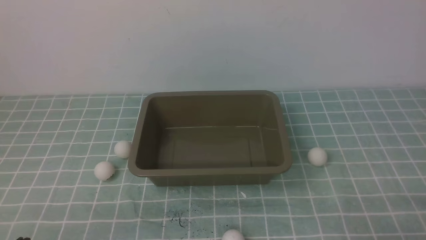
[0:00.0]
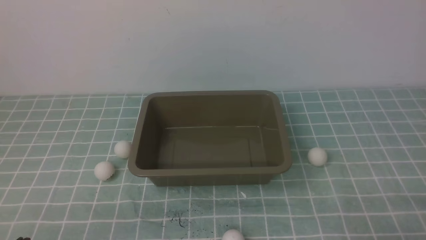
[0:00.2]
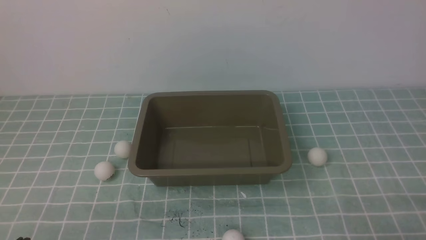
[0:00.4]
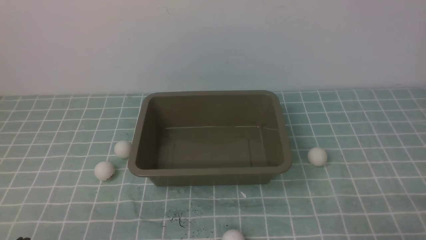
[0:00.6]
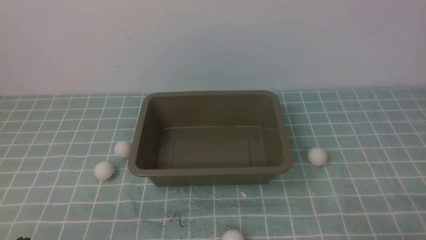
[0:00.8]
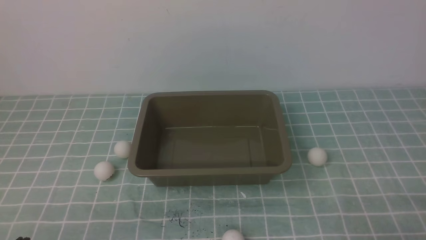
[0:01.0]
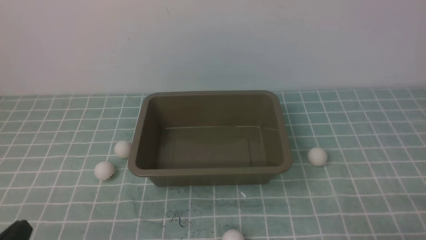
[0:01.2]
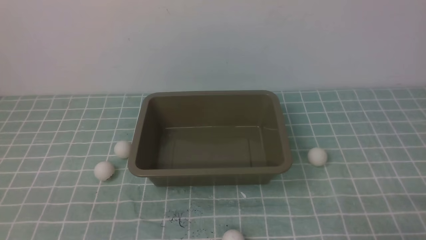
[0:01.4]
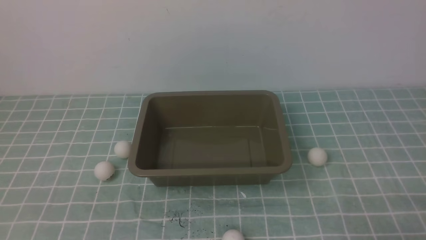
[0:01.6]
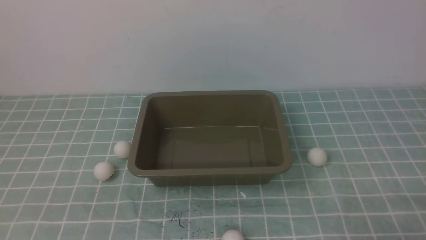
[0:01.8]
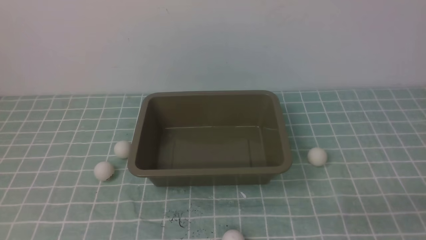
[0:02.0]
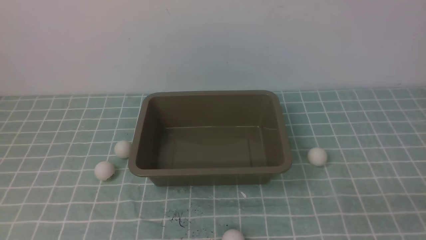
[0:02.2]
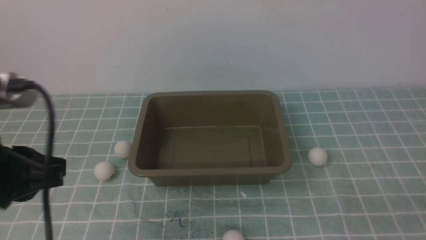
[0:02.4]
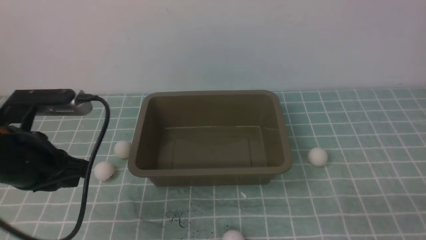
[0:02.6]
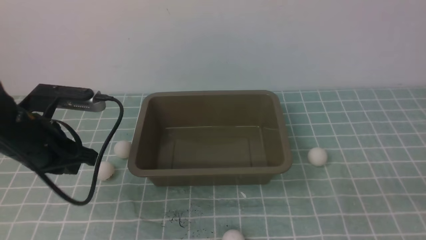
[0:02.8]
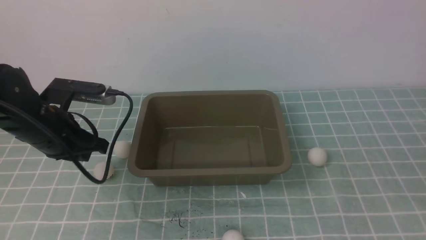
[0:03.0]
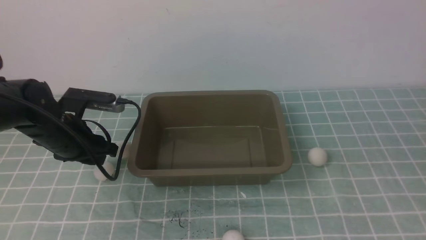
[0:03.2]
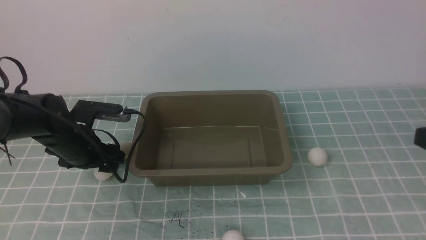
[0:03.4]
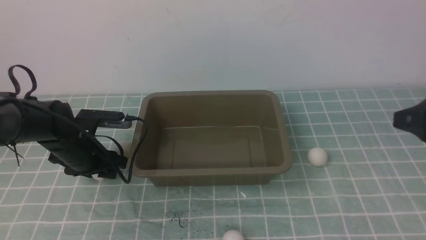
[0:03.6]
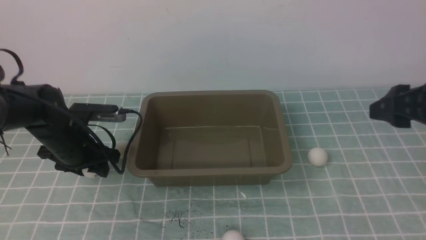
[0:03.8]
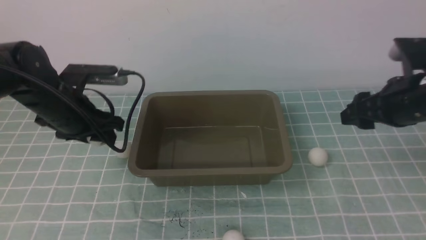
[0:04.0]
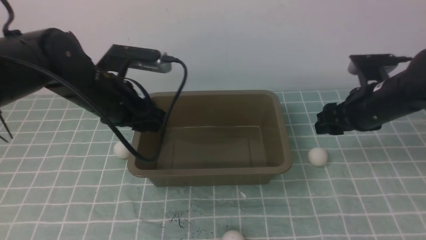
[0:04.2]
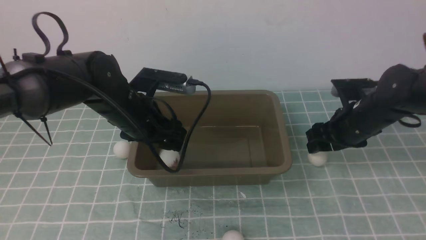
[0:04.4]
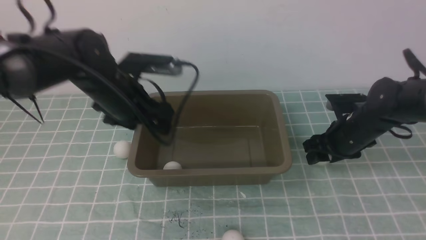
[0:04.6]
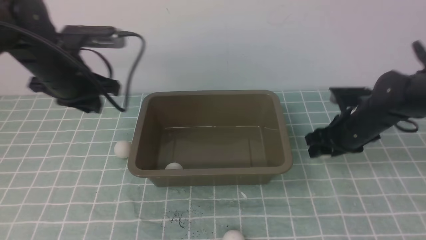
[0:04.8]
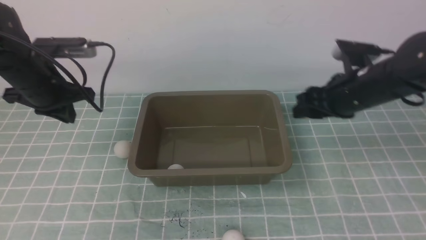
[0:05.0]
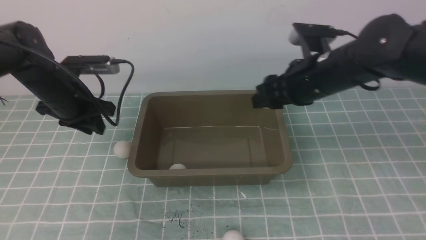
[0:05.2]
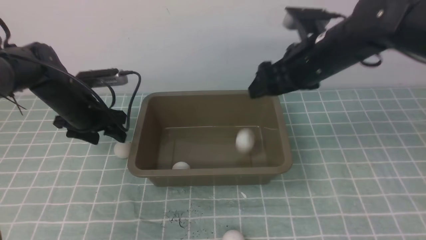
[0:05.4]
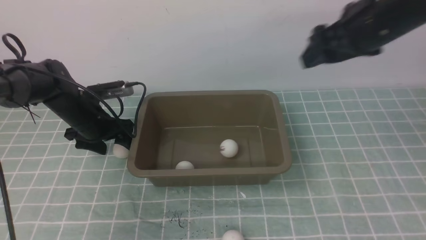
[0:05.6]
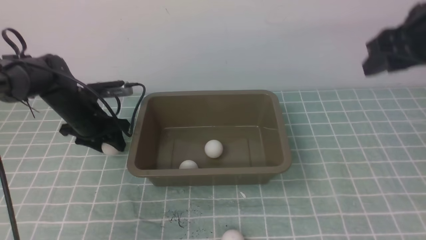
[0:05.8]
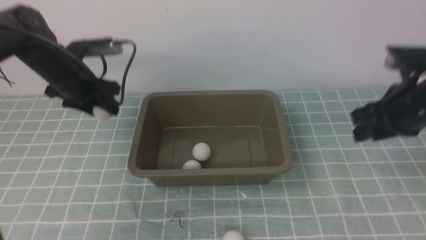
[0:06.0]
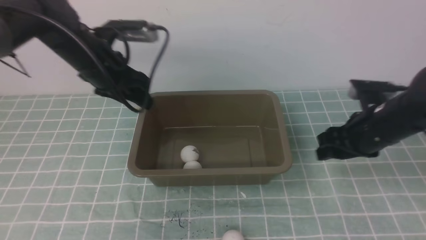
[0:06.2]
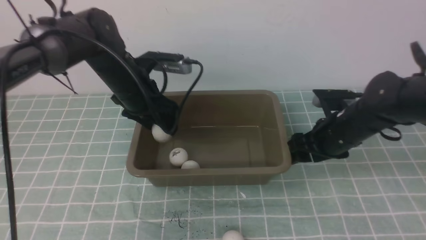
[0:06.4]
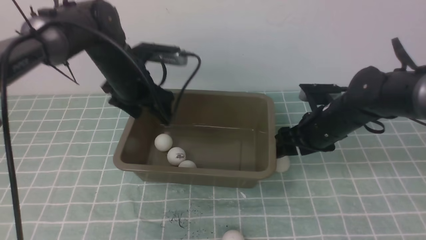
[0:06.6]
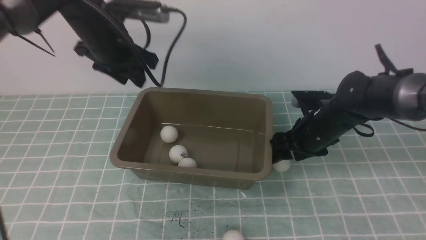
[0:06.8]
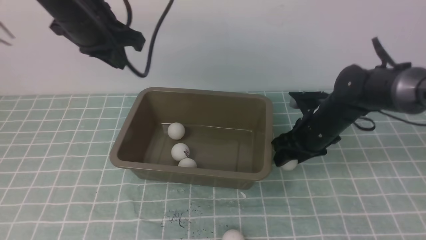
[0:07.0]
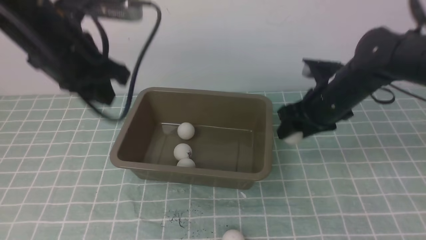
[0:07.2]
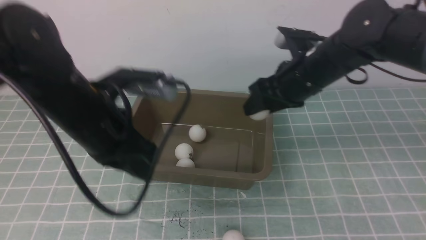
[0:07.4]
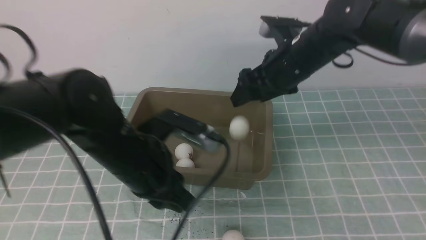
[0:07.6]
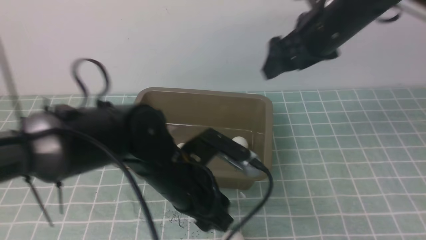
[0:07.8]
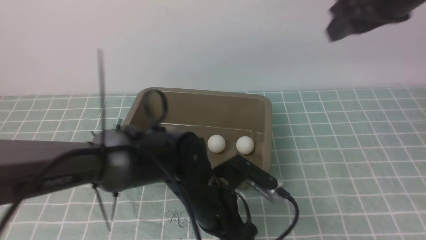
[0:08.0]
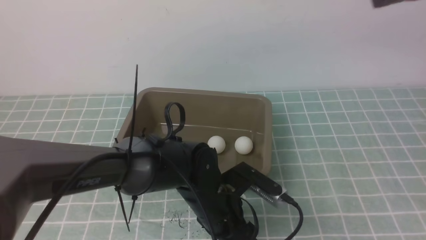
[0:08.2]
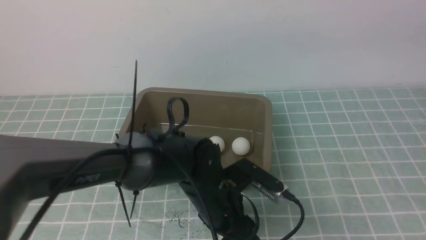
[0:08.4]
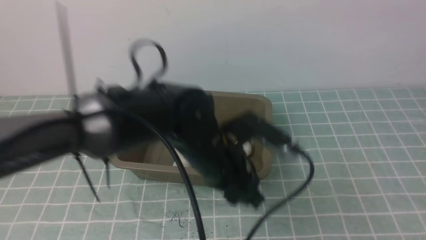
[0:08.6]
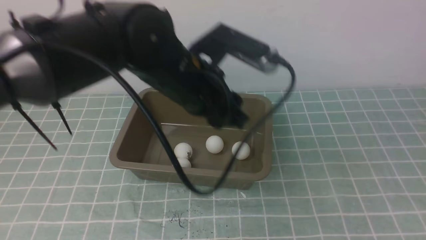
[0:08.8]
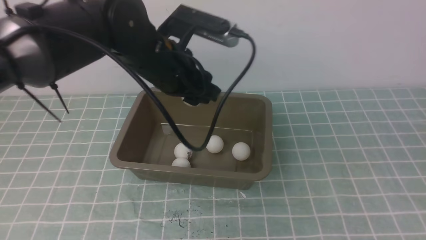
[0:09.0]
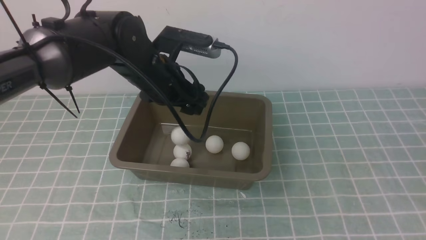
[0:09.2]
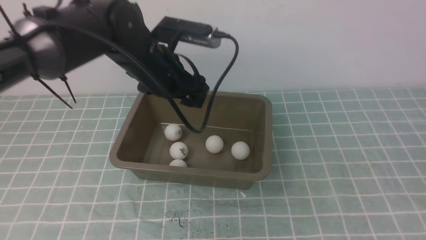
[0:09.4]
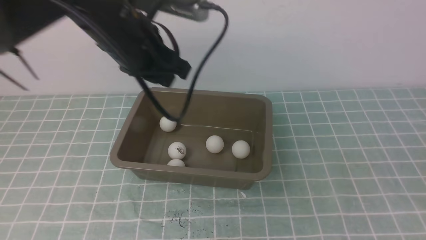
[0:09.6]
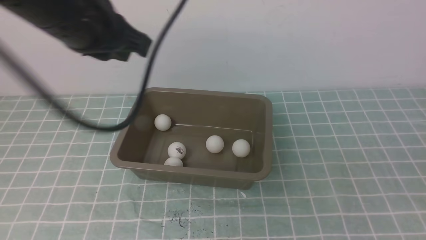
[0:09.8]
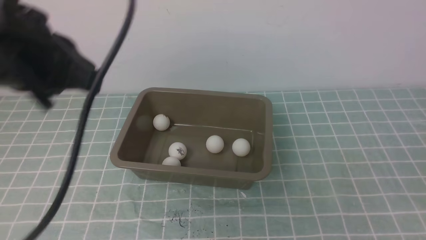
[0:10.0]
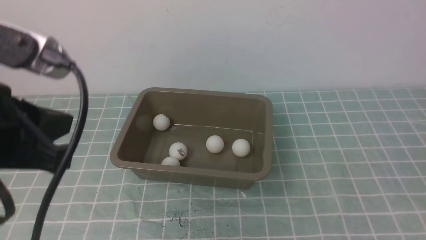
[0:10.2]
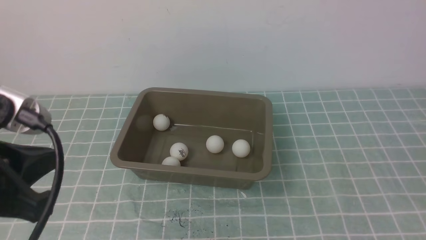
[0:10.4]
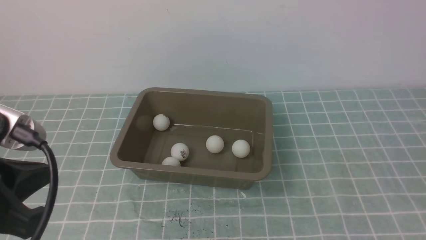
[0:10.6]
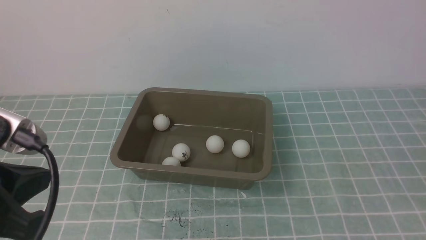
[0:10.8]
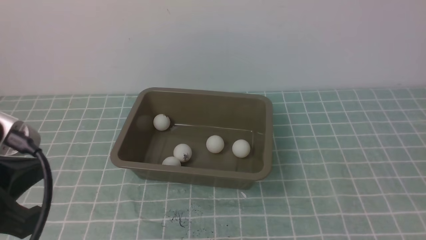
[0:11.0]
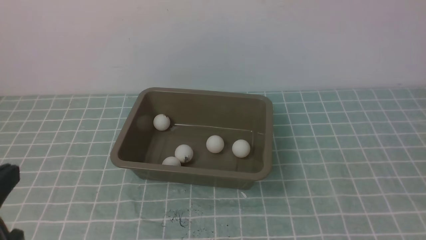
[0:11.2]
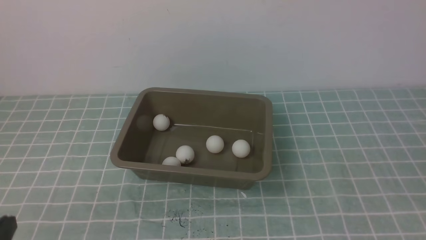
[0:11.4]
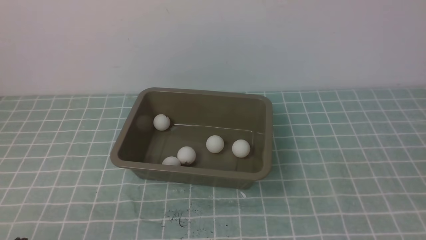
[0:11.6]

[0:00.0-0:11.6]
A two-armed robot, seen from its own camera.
Step, 0.0 to 3.8 s: use the left arm to clamp the table tennis ball closest to it.
Step, 4.0 to 4.4 s: use the left arm to put the table tennis ball into the box.
Step, 4.6 to 4.8 s: use the right arm to clamp the table tennis ball closest to it.
Step, 5.0 to 5.2 s: use the right arm to put the table tennis ball into the box.
Step, 5.4 to 6.0 s: use the left arm to clamp the table tennis ball closest to it.
Step, 6.2 to 6.4 s: use the left arm to put the table tennis ball into the box.
Step, 6.6 to 7.0 s: use the right arm to clamp the table tennis ball closest to it.
Step, 7.2 to 7.6 s: use the right arm to put the table tennis ball into the box.
Step, 7.8 to 8.4 s: use the left arm to clamp the table tennis ball closest to it.
Step, 8.6 to 9.4 s: use the left arm to put the table tennis ball into the box.
1.4 to 2.8 s: The left gripper moves forward, roughly 20 cm.
2.8 to 4.4 s: The right gripper heads forward, covering some 30 cm, and opens up. The left gripper travels forward and to the right by roughly 15 cm, goes downward and returns, some 10 cm each way, and opens.
4.4 to 5.8 s: The right gripper is displaced upward by about 15 cm; the left gripper is displaced to the left, downward and forward by roughly 15 cm, and closes, then reopens.
5.8 to 7.2 s: The left gripper moves upward, backward and to the right, roughly 20 cm, and closes up, while the right gripper goes about 15 cm downward and to the left.
7.2 to 8.8 s: The right gripper goes some 40 cm backward, upward and to the right, and closes its fingers, while the left gripper moves to the right and downward, about 15 cm, and opens up.
8.8 to 10.2 s: The right gripper moves backward and downward, some 20 cm, while the left gripper heads to the left, backward and upward, covering roughly 25 cm, and closes.
10.2 to 11.6 s: The left gripper travels downward and backward by about 25 cm.

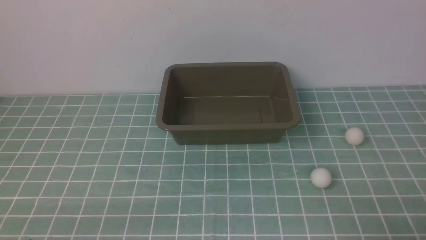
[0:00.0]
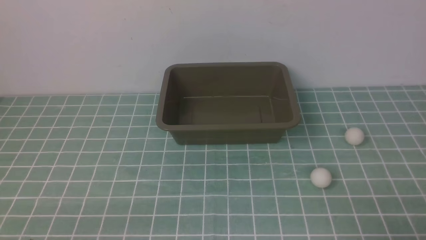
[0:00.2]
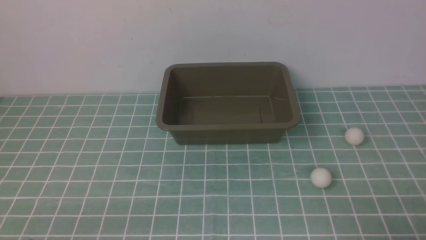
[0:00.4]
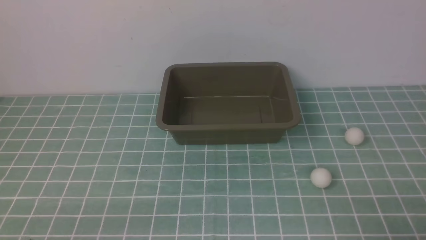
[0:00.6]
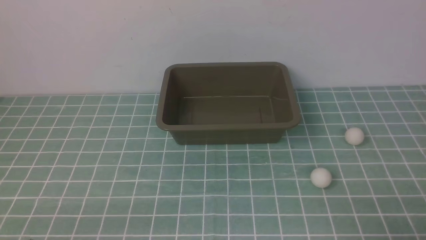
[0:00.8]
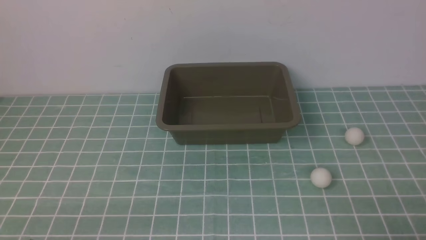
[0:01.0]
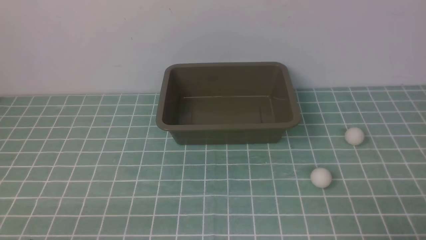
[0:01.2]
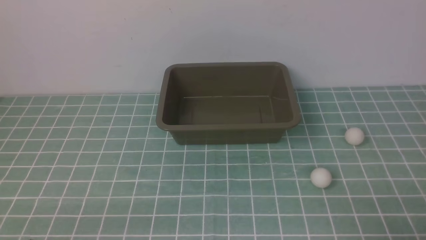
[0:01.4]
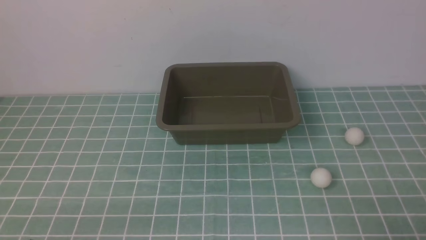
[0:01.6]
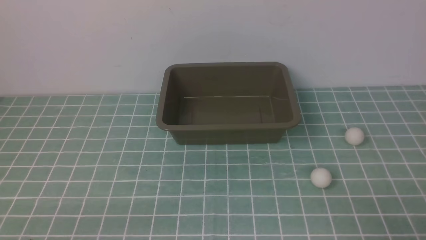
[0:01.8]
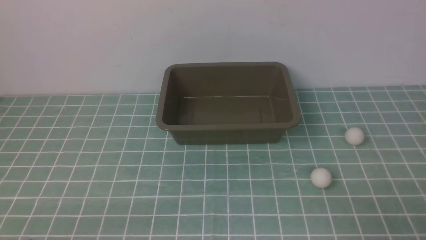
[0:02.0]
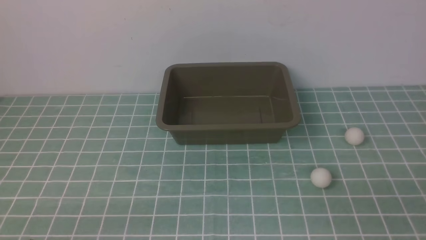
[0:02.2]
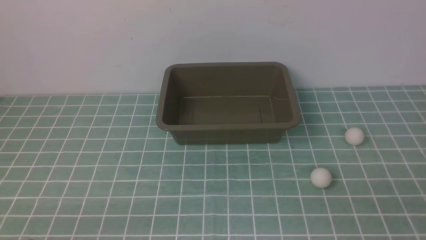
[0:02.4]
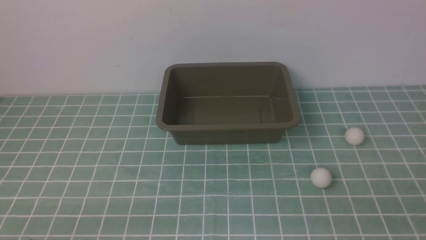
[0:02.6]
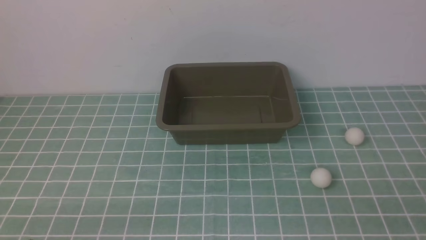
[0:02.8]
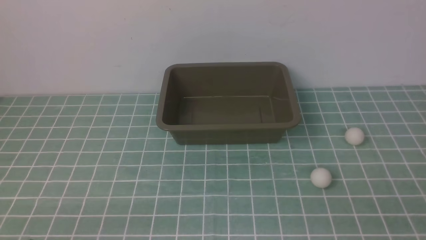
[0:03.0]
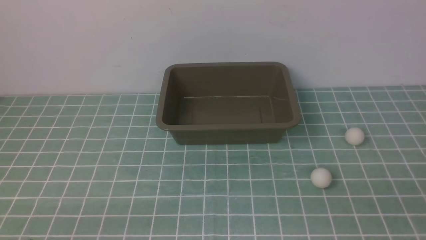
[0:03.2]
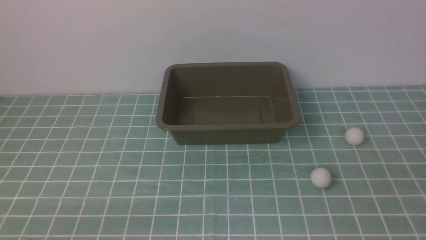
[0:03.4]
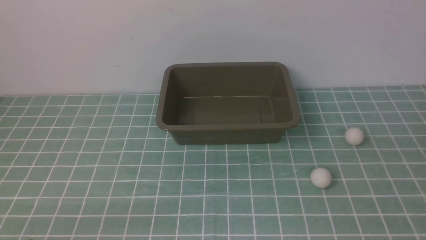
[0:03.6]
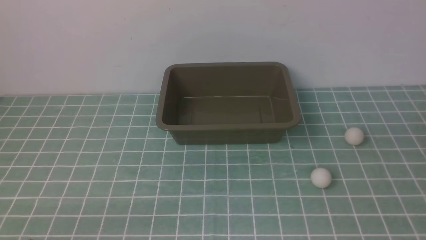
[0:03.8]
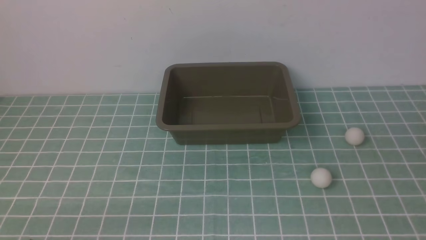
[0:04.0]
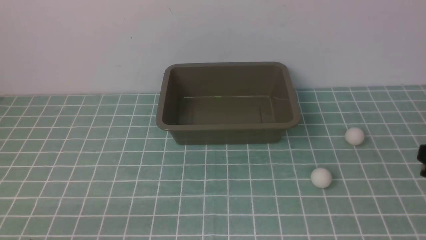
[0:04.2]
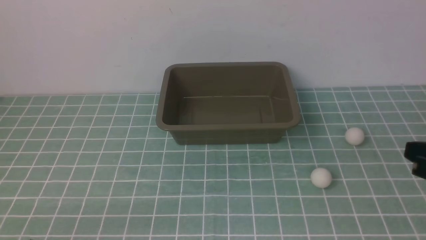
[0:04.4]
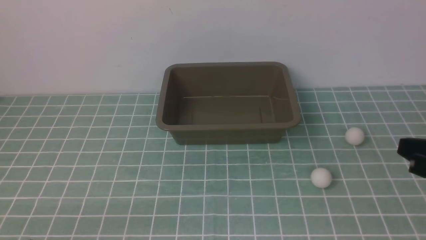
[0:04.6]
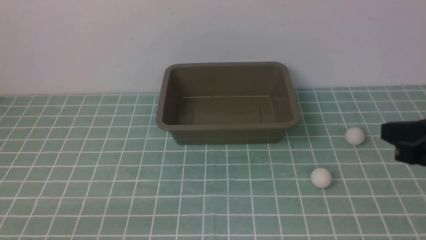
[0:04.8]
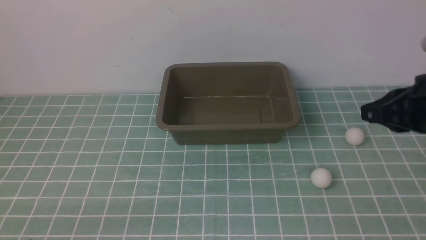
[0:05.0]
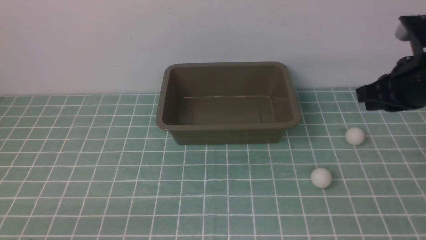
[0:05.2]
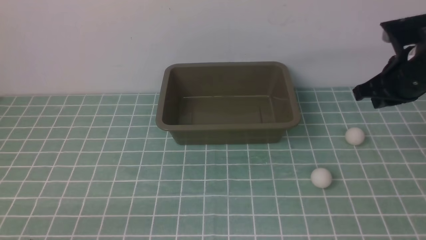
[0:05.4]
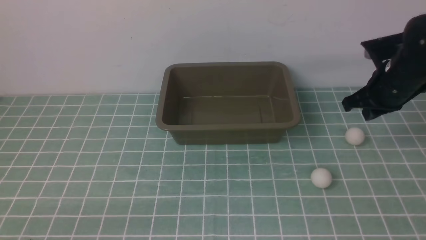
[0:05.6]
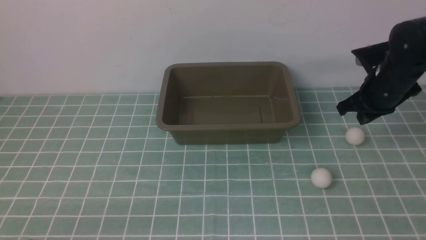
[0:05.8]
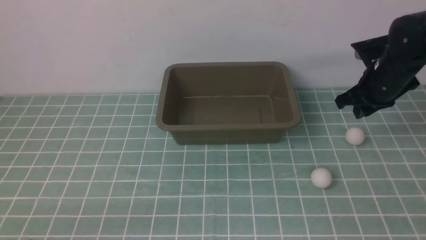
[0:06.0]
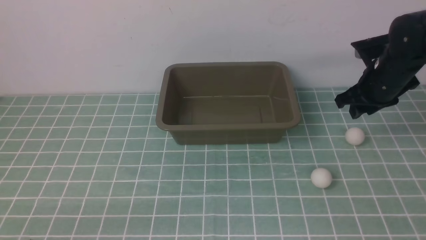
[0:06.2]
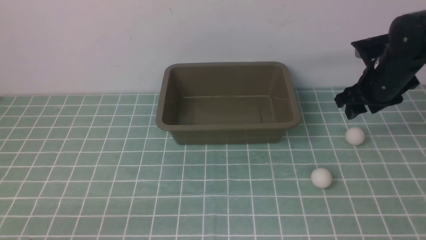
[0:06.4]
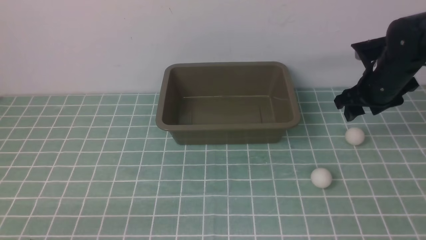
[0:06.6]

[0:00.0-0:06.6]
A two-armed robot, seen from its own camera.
3.2 to 5.0 s: The right gripper travels forward by approximately 15 cm.
5.0 to 6.6 s: The right gripper heads forward, covering about 20 cm, and opens up.
